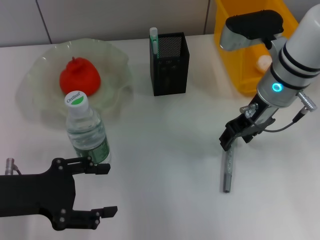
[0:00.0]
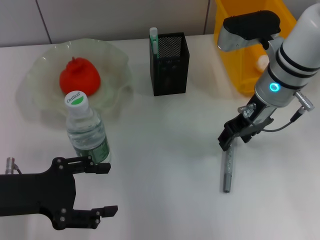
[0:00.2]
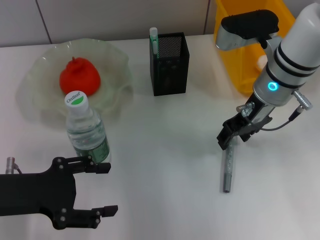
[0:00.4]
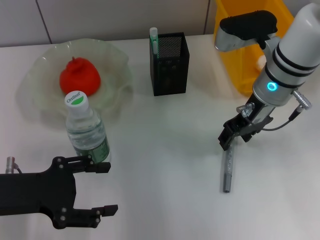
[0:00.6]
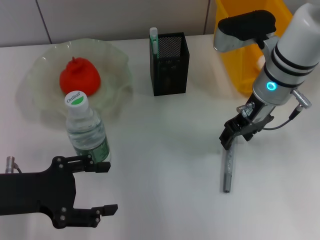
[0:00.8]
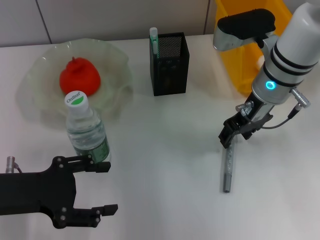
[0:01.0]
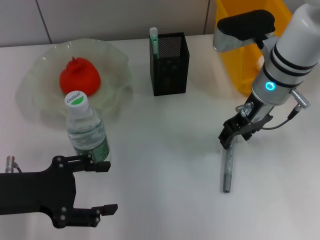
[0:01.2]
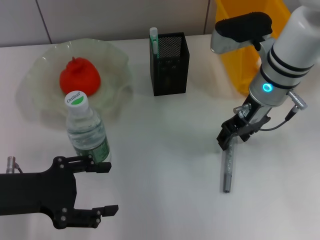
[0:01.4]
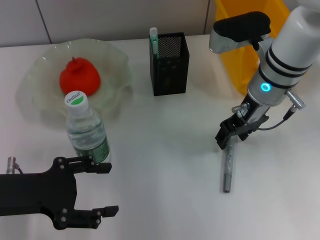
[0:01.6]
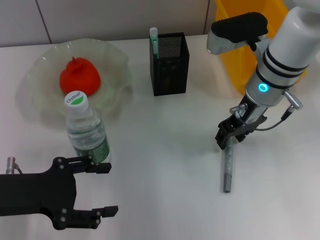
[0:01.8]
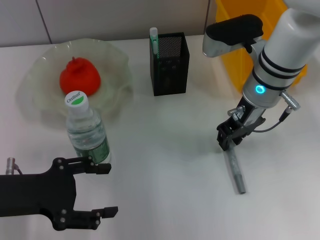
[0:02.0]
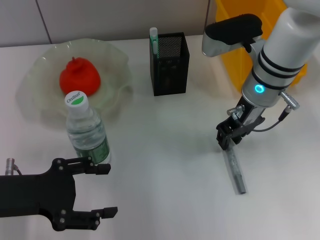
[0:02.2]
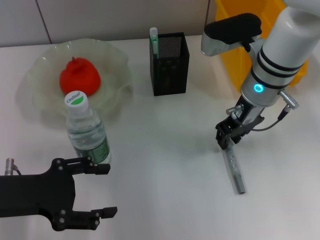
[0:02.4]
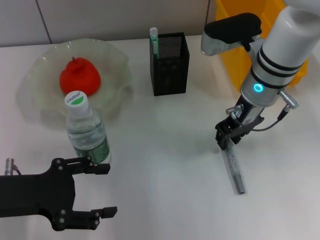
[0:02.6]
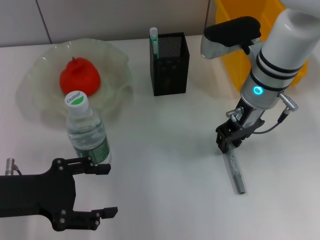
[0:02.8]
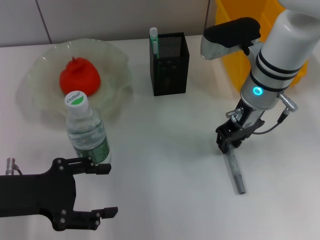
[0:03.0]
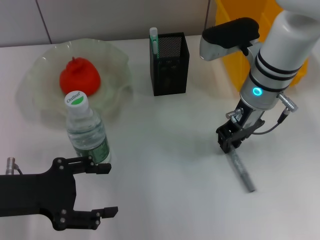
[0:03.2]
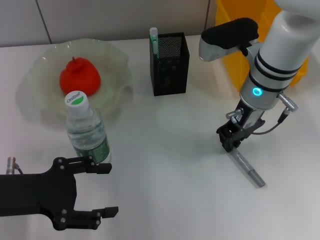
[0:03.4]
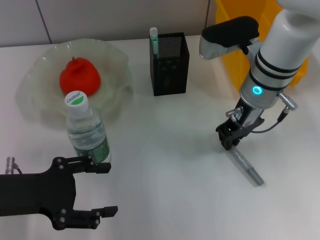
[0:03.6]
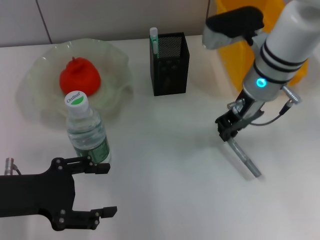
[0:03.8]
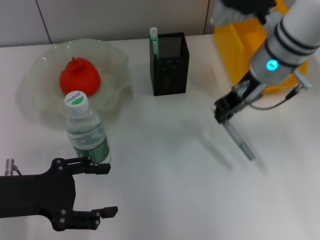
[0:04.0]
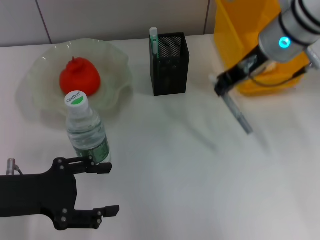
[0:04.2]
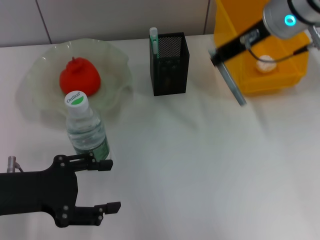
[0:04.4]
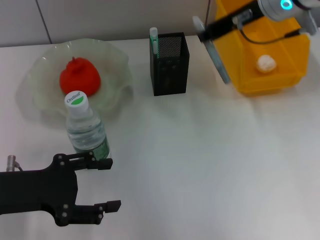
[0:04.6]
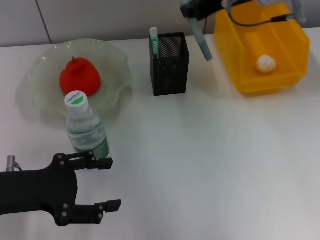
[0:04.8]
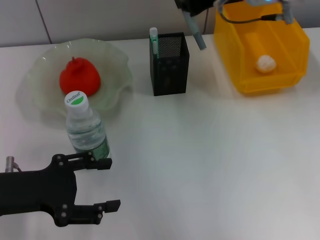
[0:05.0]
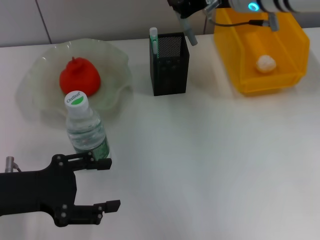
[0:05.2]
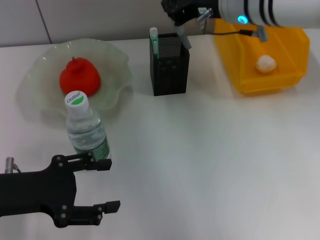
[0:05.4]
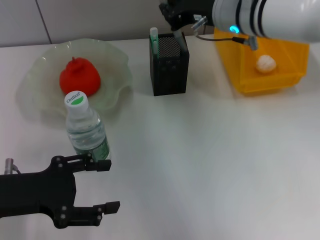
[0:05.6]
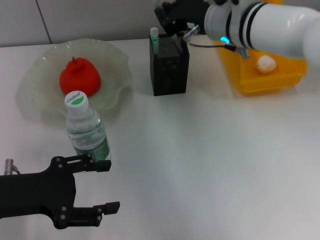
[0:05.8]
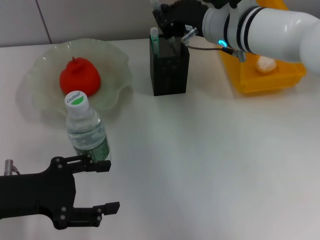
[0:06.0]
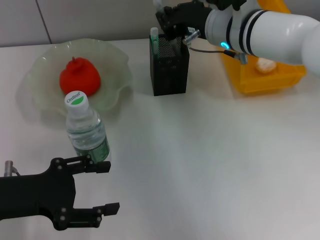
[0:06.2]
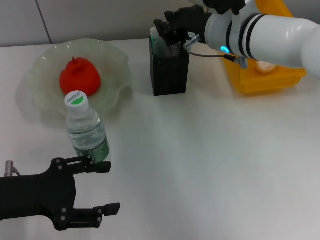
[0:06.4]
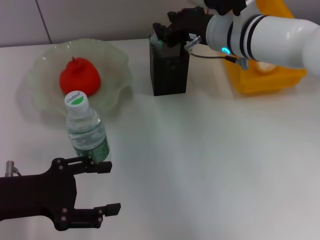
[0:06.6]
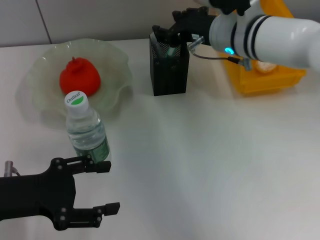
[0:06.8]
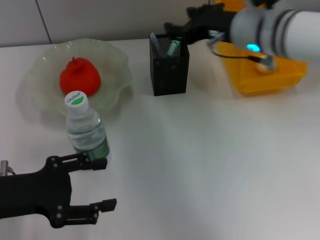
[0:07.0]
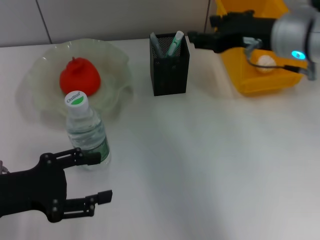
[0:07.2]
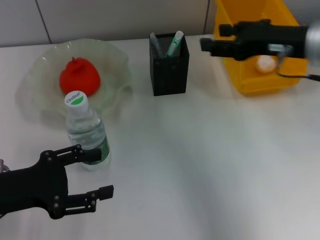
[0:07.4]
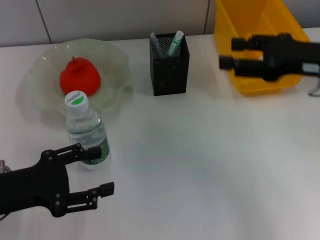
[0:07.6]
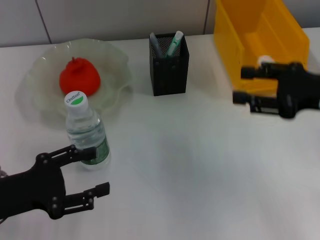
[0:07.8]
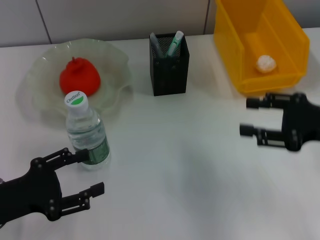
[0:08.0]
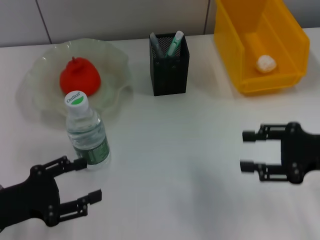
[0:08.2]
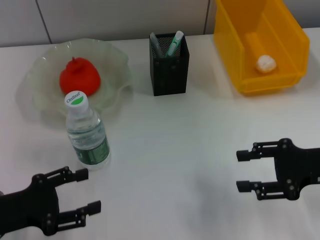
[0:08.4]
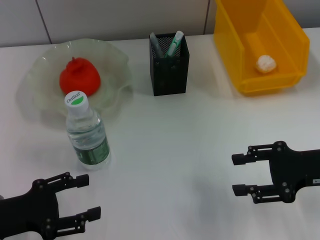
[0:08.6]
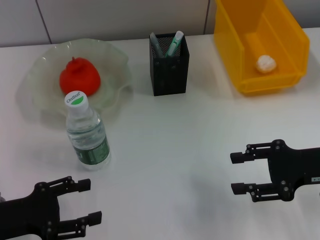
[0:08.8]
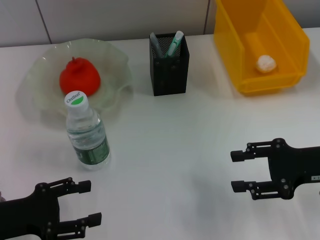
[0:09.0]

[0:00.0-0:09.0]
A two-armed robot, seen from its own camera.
Step, 0:00.0 to 0:03.4: Grab the gray glue with the right hand.
Step, 0:03.6 to 0:06.8: Place the gray glue into the pen holder with the right hand.
0:00.0 to 0:01.6: The grippers make only small movements.
0:01.6 to 0:03.0: The right gripper closes up.
0:03.0 to 0:04.4: The right gripper shifts some 10 cm upward.
0:04.4 to 0:06.0: The right gripper heads downward and to the left, covering roughly 10 cm.
0:06.0 to 0:07.6: The right gripper moves to the right and backward, roughly 20 cm, and opens up.
0:07.6 to 0:09.0: The right gripper heads downward and backward, covering some 10 cm.

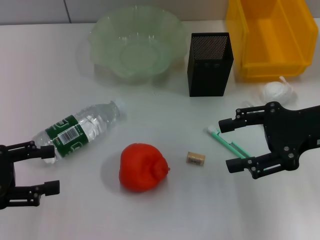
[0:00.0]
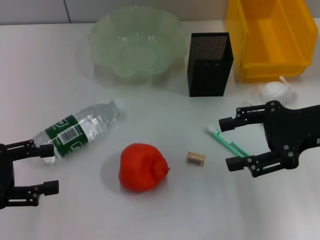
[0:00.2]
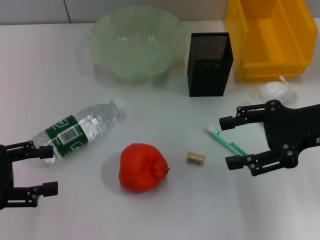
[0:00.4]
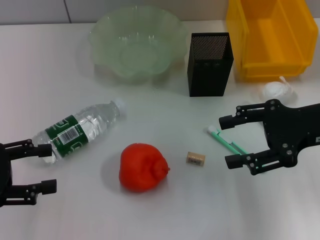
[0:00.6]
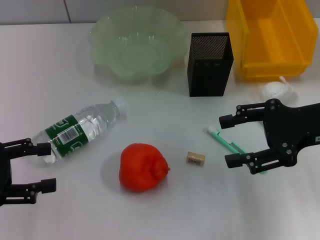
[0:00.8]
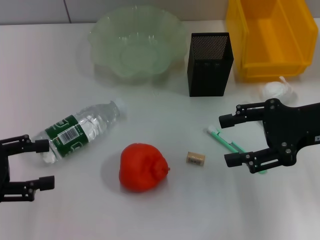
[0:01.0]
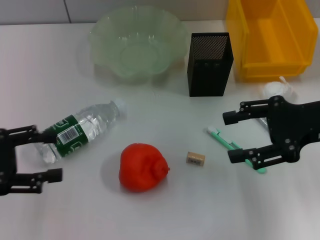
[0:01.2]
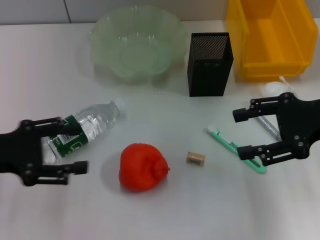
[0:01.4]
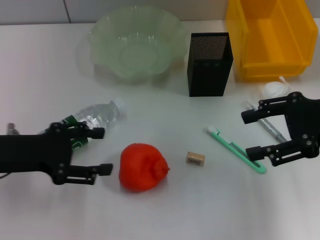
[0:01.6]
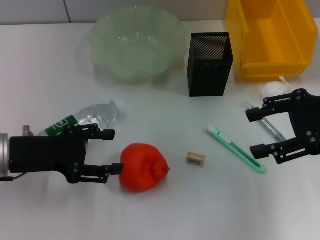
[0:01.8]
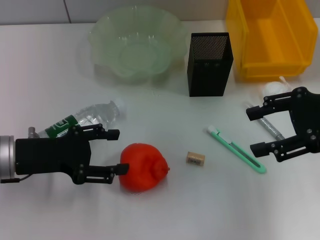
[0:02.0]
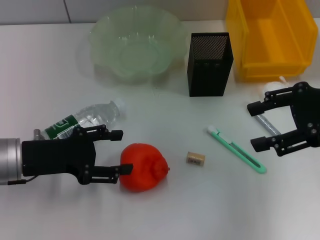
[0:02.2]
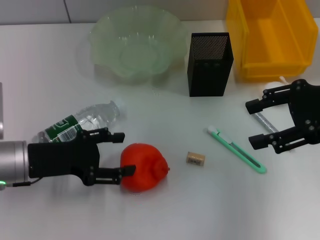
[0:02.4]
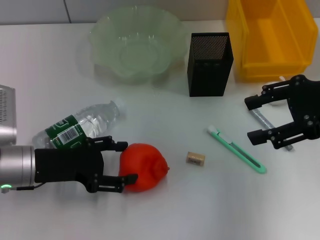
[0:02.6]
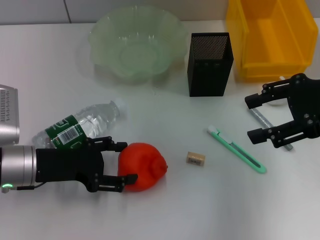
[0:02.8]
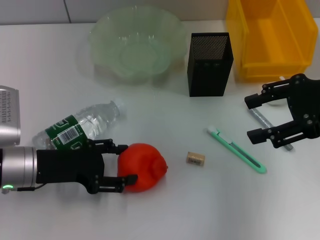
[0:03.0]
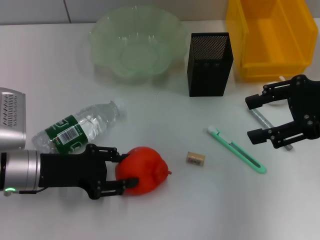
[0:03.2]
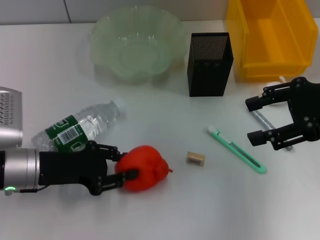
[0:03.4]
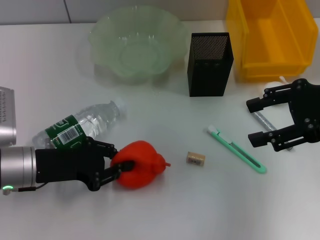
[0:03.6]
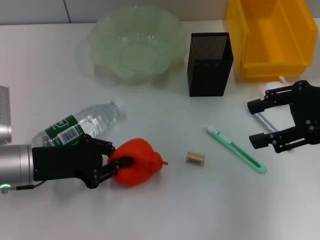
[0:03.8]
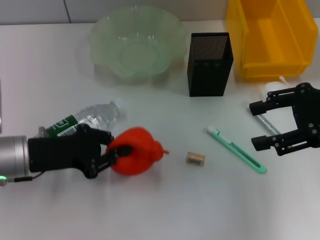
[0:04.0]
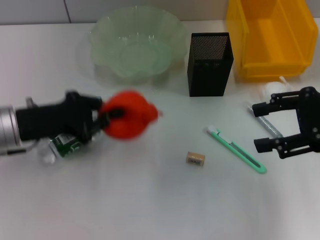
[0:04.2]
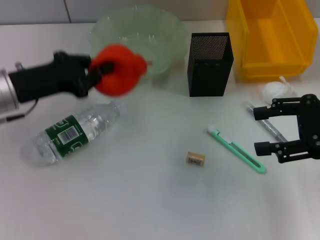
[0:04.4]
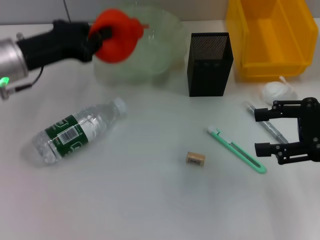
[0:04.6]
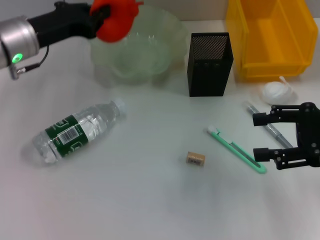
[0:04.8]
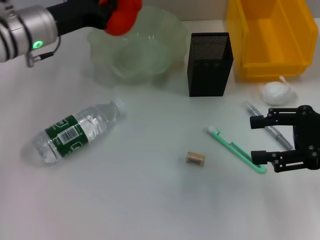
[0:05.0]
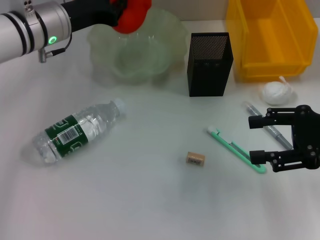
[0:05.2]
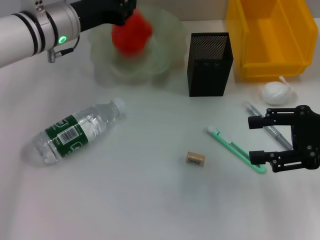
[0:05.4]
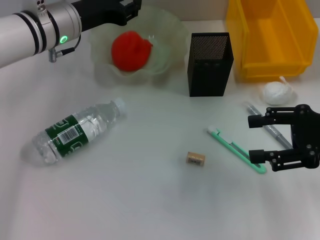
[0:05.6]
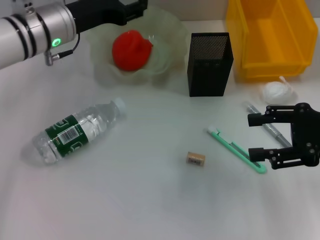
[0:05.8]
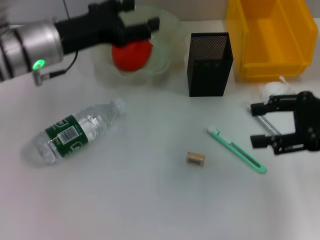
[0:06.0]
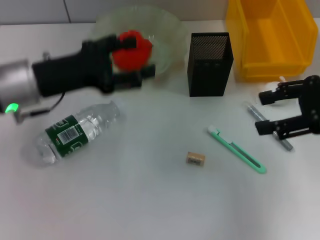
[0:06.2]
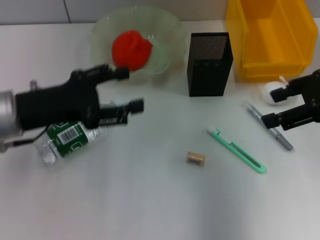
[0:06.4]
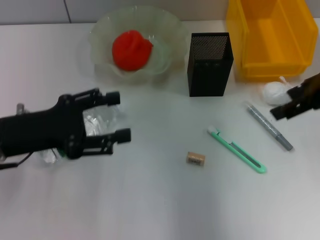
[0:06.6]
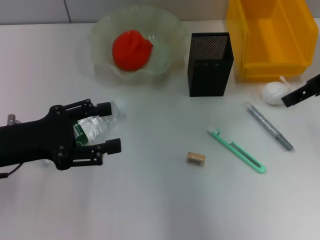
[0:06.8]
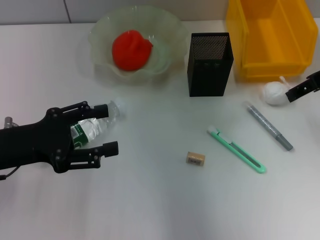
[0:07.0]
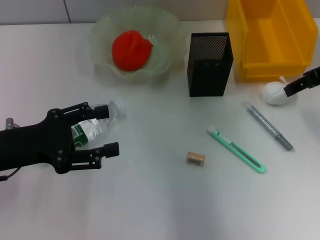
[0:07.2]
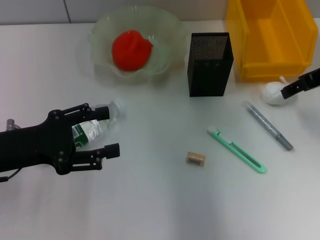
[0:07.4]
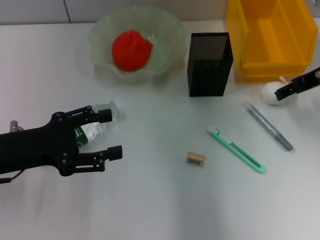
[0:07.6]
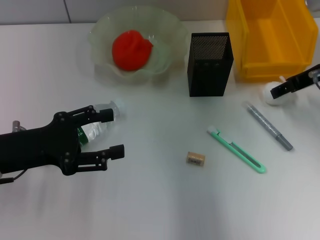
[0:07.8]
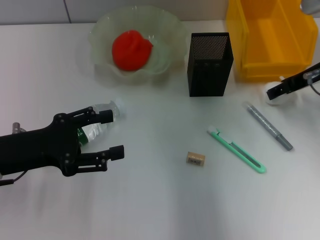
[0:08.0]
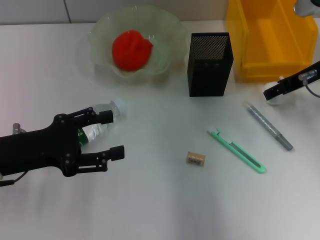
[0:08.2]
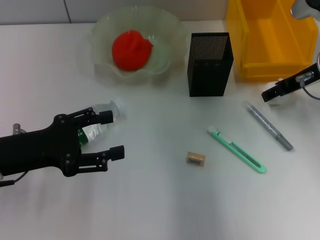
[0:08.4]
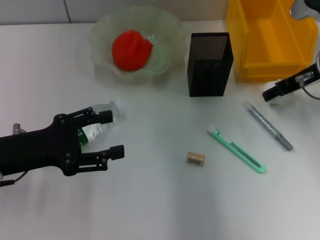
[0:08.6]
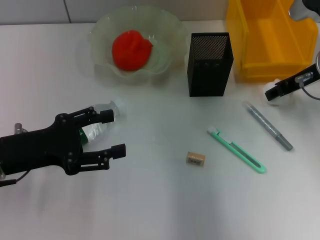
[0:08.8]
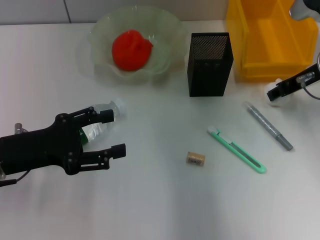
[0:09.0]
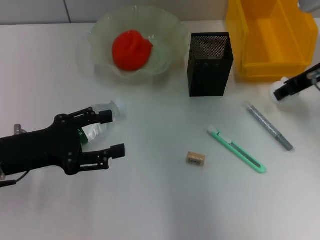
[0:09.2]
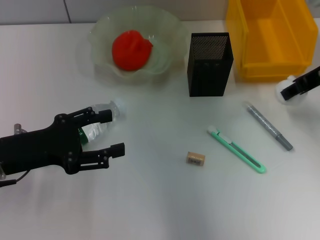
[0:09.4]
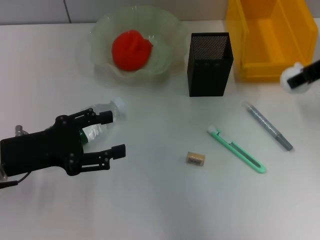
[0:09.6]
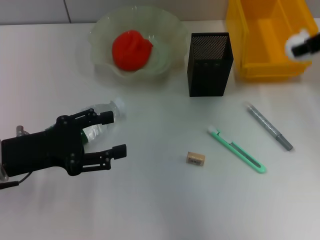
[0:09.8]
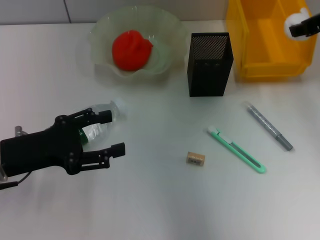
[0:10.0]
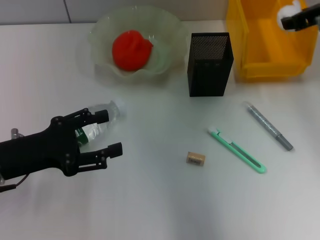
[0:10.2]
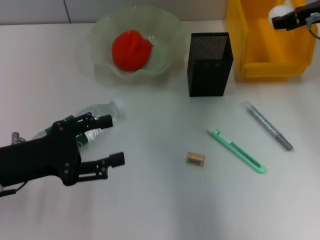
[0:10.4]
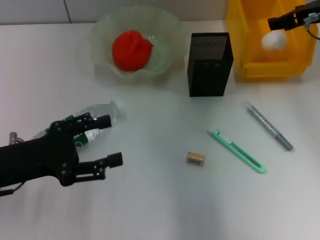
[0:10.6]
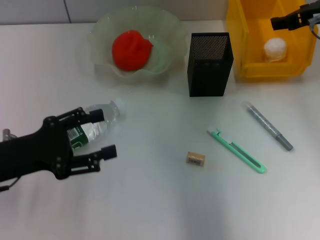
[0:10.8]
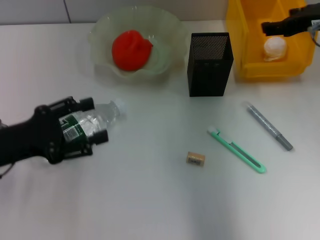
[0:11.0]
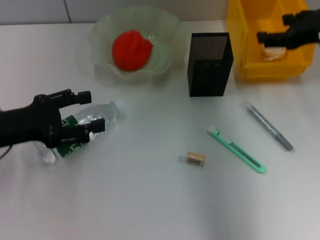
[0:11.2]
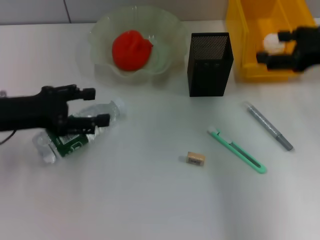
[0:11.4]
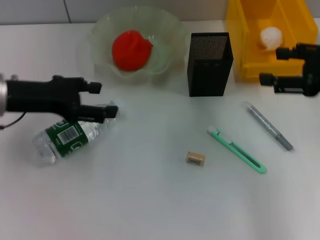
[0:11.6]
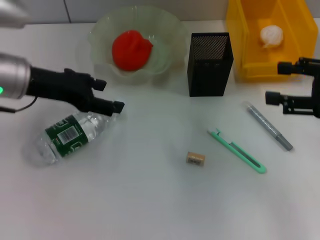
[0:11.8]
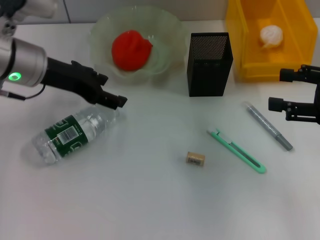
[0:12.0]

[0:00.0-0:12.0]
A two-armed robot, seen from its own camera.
Step, 0:00.0 to 0:03.8: Grab the orange with the left hand.
Step, 0:04.0 to 0:05.4: Place the orange into the fruit bowl with the left hand.
Step, 0:05.8 to 0:09.0: Grab the paper ball with the right hand.
Step, 0:09.2 to 0:10.6: Place the paper ball into the trash can with the right hand.
0:00.0 to 0:01.6: The left gripper is displaced to the right by roughly 5 cm.
0:01.6 to 0:03.0: The left gripper goes about 5 cm downward.
0:03.0 to 0:04.4: The left gripper travels upward and forward by roughly 10 cm, and closes up; the right gripper moves roughly 5 cm.
0:04.4 to 0:06.0: The left gripper is displaced to the right and forward by approximately 10 cm, and opens up.
0:06.0 to 0:07.6: The right gripper is displaced forward by roughly 10 cm. The left gripper heads backward and to the left, covering about 15 cm.
0:07.6 to 0:09.0: The right gripper closes.
0:10.4 to 0:12.0: The right gripper is displaced backward and to the right by about 15 cm, and opens its fingers; the left gripper goes some 15 cm forward, upward and to the right.

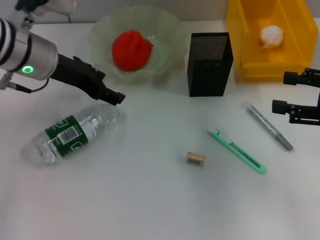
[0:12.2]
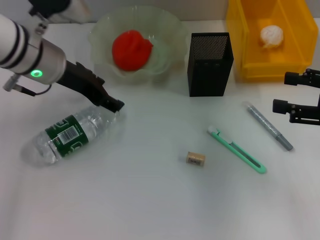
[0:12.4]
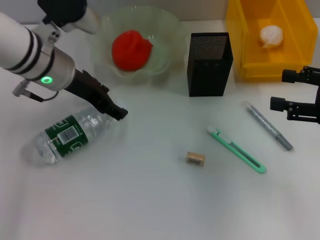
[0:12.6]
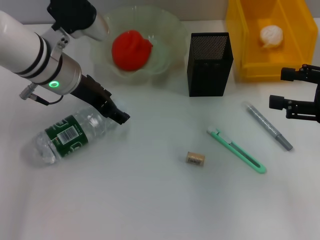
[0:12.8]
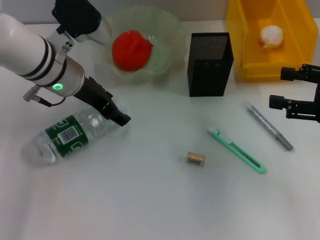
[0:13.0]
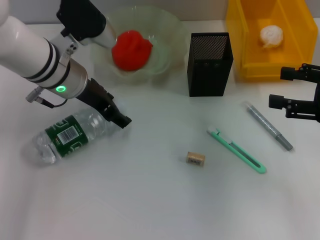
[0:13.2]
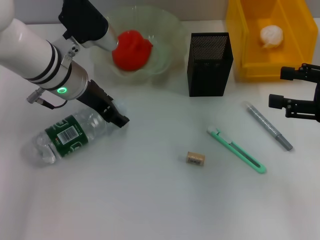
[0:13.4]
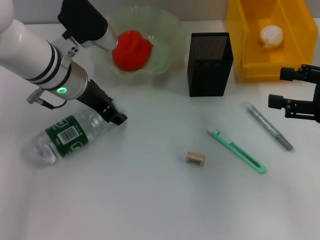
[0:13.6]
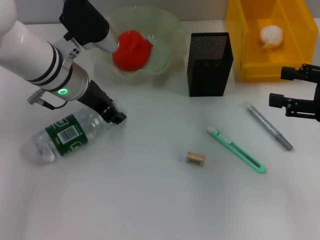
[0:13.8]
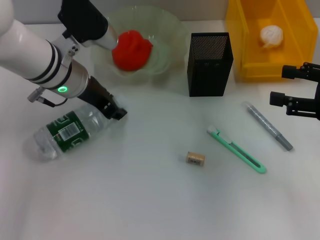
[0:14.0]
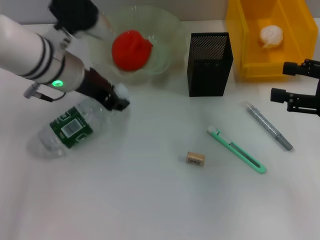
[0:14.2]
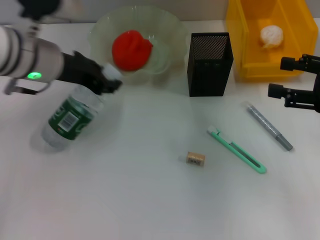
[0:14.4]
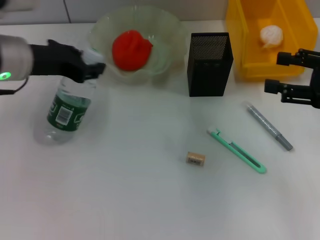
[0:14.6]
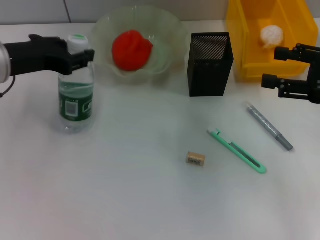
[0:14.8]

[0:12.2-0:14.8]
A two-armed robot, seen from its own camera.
Step, 0:12.2 to 0:13.8: Grab the water bottle with the left hand.
0:12.2 to 0:13.4: The left gripper moves approximately 5 cm.
0:13.4 to 0:14.8: The left gripper shifts approximately 10 cm to the left and backward, and closes its fingers.
